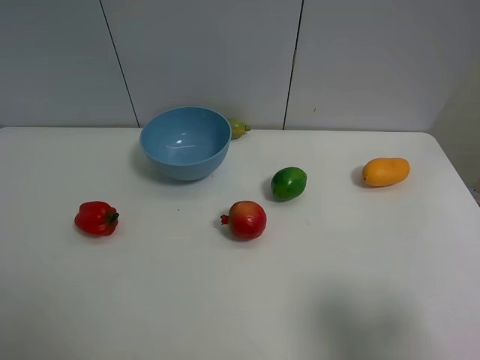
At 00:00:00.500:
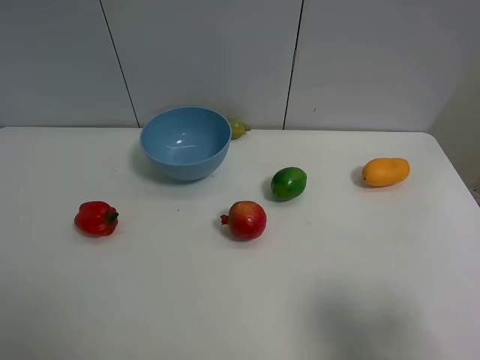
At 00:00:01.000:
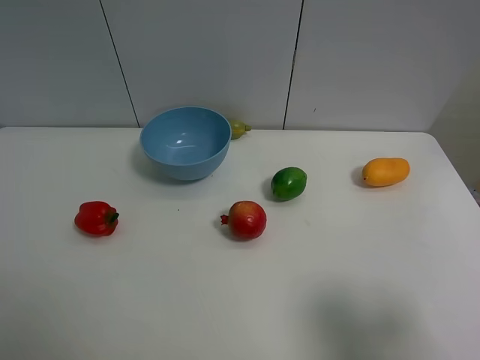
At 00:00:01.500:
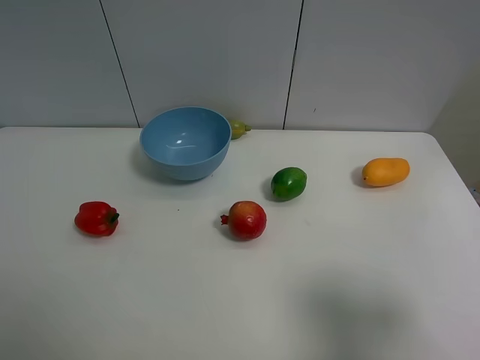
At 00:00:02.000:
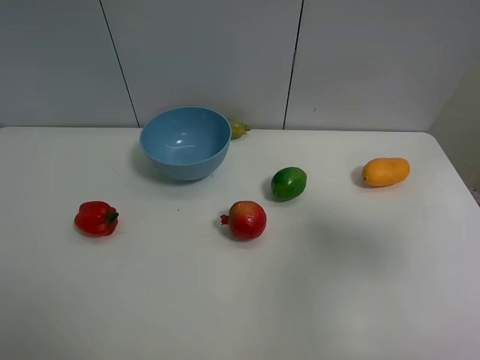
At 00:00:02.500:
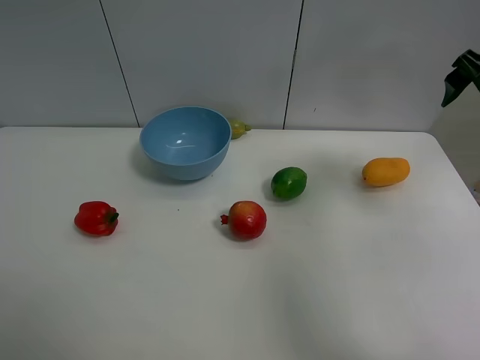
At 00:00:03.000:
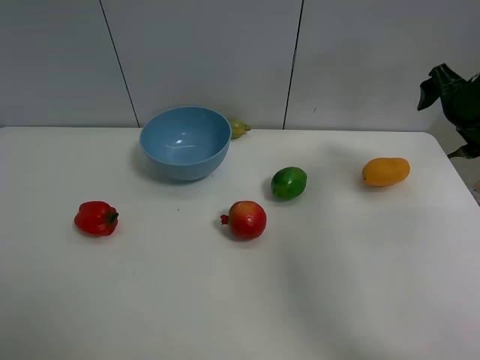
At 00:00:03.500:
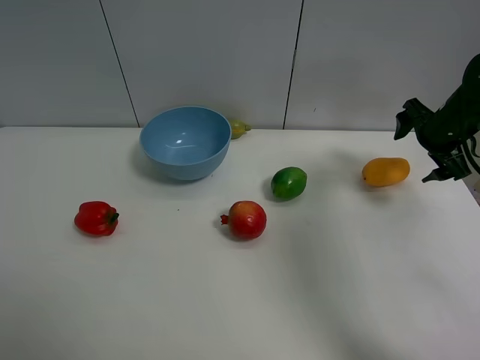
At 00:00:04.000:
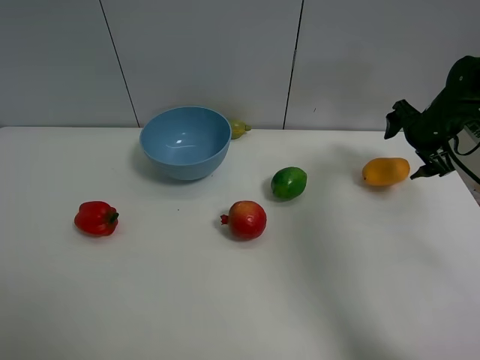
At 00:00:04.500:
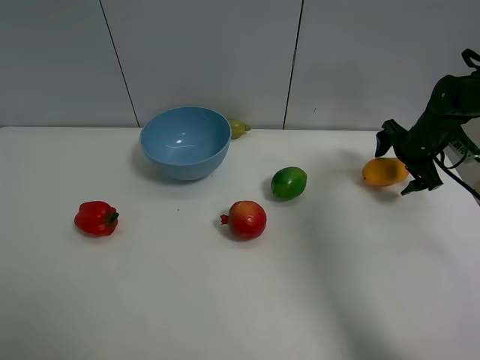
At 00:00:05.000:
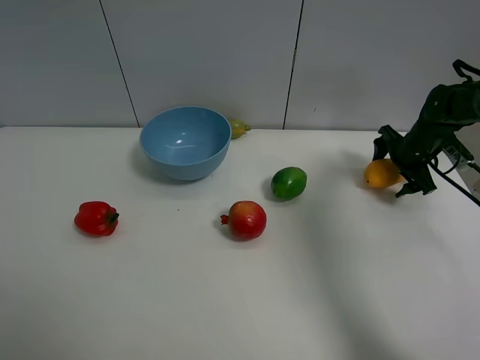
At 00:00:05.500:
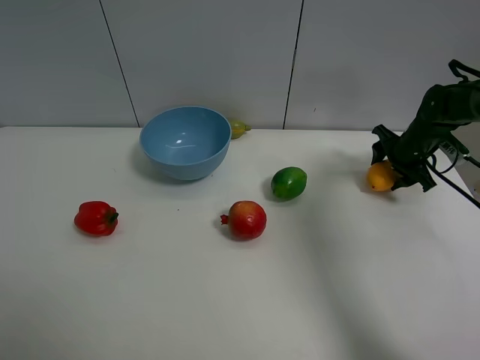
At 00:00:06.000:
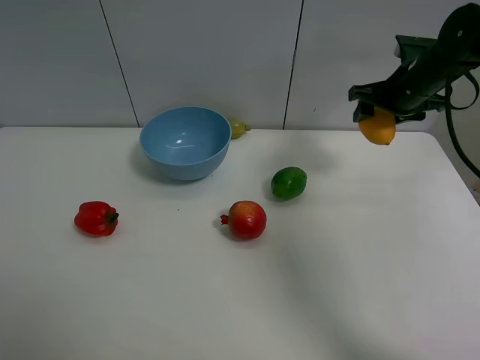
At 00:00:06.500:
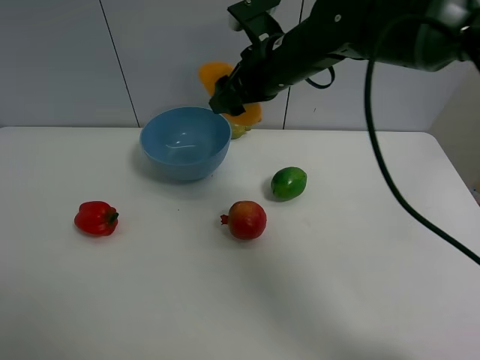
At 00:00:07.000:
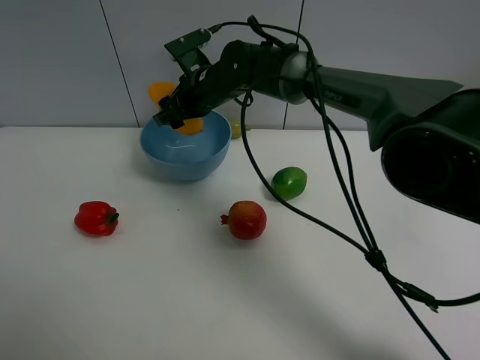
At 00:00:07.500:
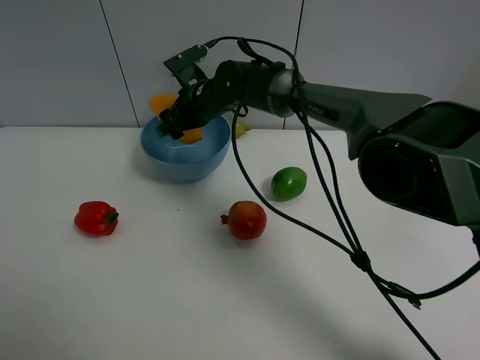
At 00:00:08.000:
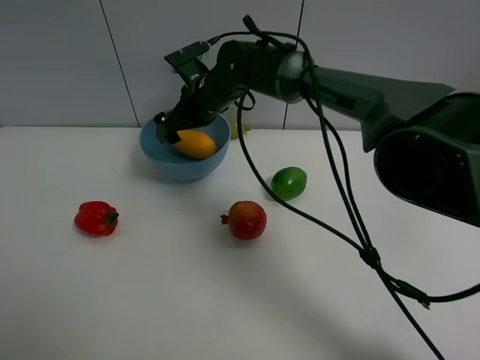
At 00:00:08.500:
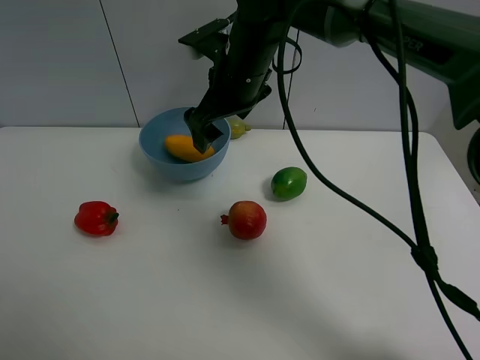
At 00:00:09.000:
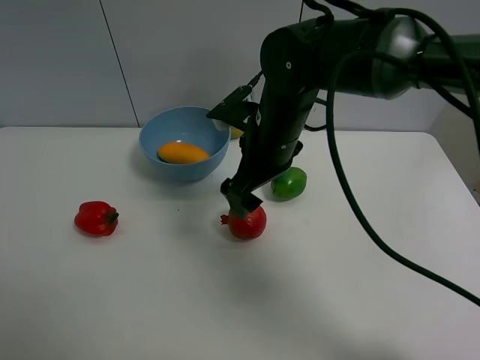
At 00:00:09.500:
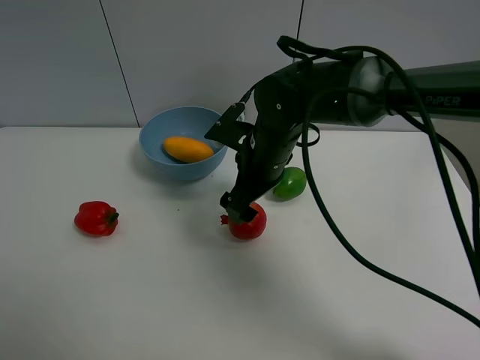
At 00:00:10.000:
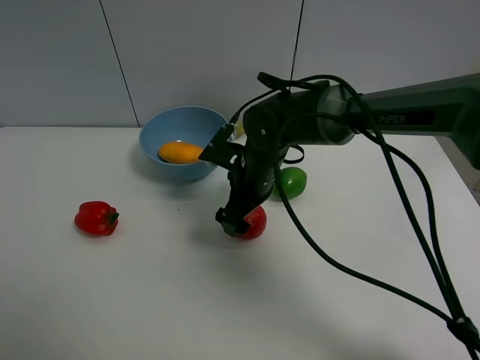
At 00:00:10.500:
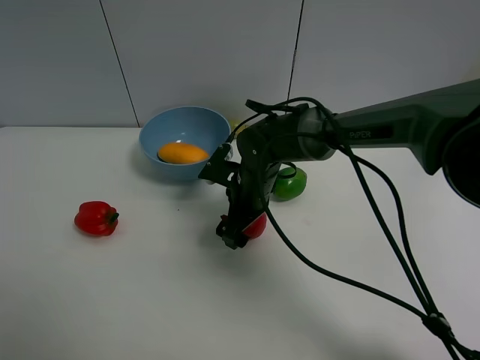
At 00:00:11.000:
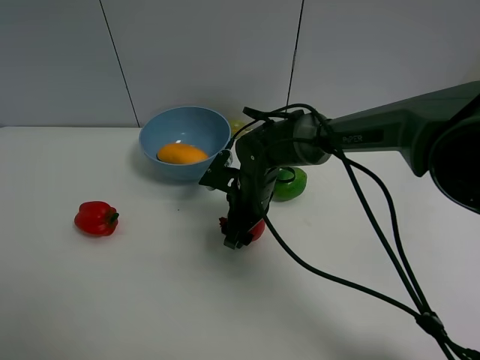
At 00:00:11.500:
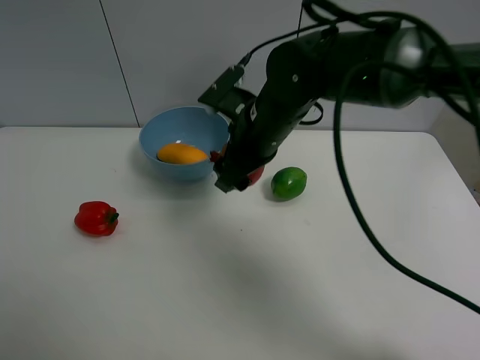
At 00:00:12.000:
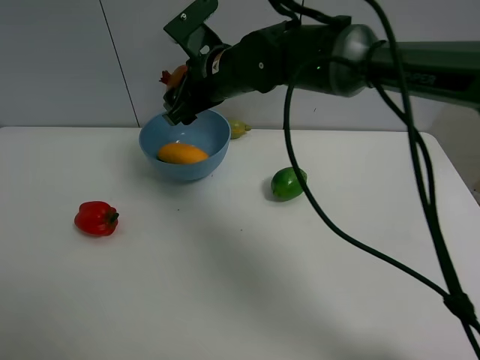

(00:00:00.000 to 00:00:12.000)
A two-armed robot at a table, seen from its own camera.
Task of the whole recording: Put the three fruits on the table into a bowl.
Step, 00:00:00.000 - 00:00:05.000: Grasp the mango with right gripper.
Step, 00:00:05.500 - 00:00:07.500: Place the mango in the blue bowl with right gripper.
Step, 00:00:08.000 - 00:00:11.000: Grasp the pomegranate with right gripper.
00:00:00.000 - 00:00:02.000: The right gripper shifts roughly 15 cm forward and upward.
00:00:02.000 - 00:00:04.000: The right gripper is displaced forward and downward by approximately 30 cm.
00:00:04.000 - 00:00:06.000: The right gripper travels to the left and upward by approximately 10 cm, and closes its fingers.
00:00:06.000 - 00:00:08.000: The right gripper moves to the left, roughly 30 cm, and opens up.
00:00:08.000 - 00:00:10.000: The right gripper heads backward, downward and to the right, covering about 15 cm.
00:00:10.000 - 00:00:12.000: The right gripper is displaced upward and forward by some 10 cm, and closes its fingers.

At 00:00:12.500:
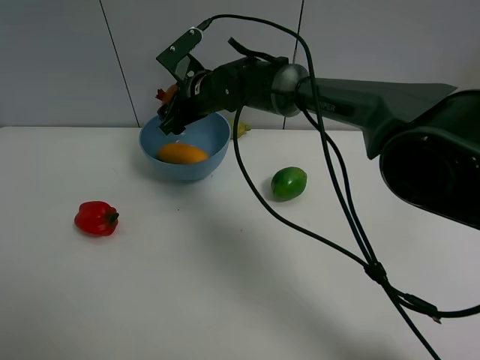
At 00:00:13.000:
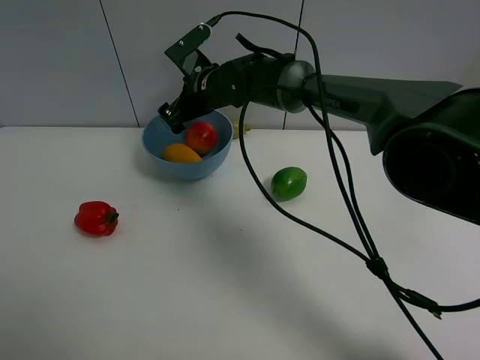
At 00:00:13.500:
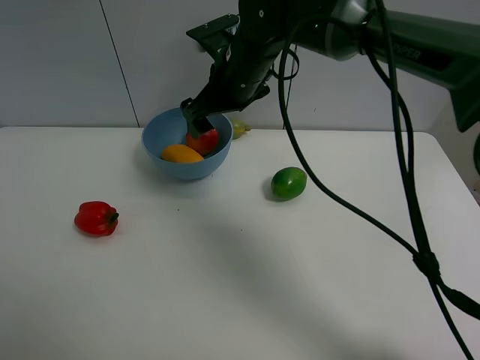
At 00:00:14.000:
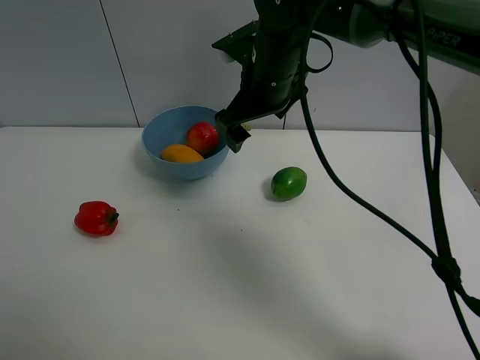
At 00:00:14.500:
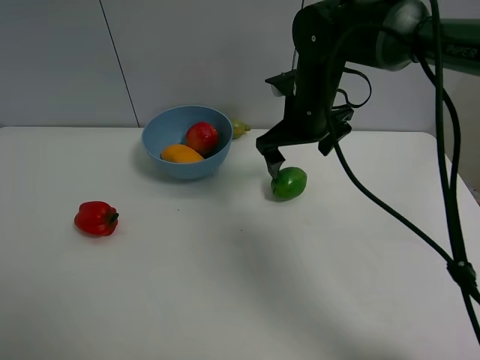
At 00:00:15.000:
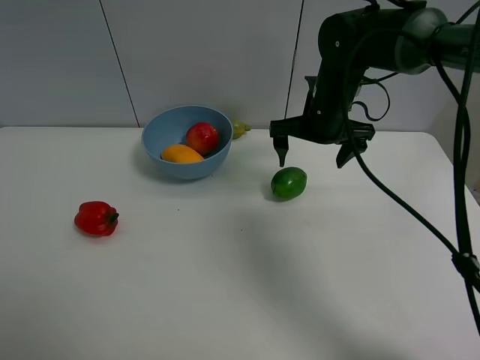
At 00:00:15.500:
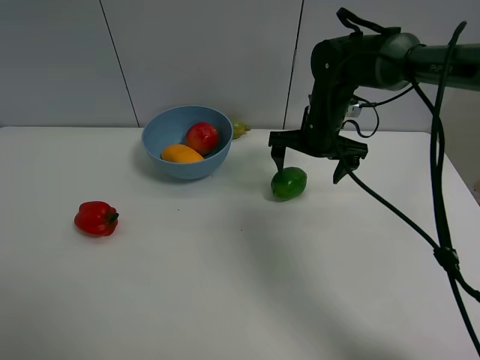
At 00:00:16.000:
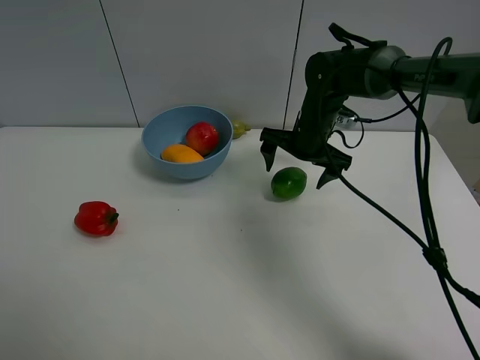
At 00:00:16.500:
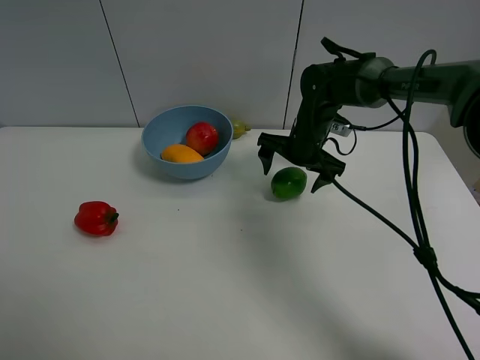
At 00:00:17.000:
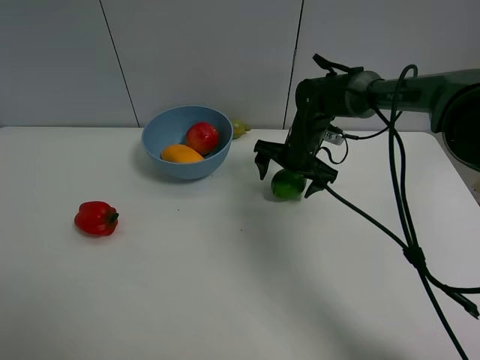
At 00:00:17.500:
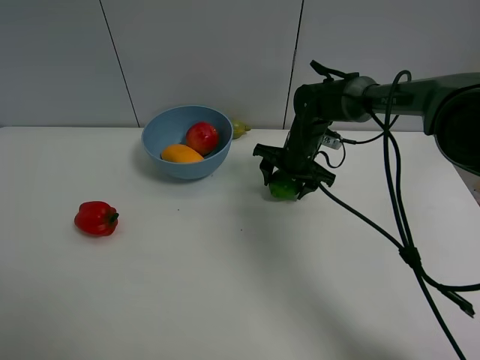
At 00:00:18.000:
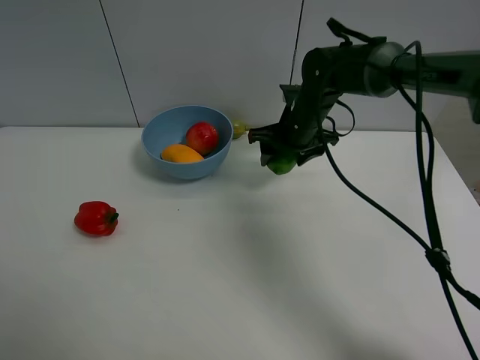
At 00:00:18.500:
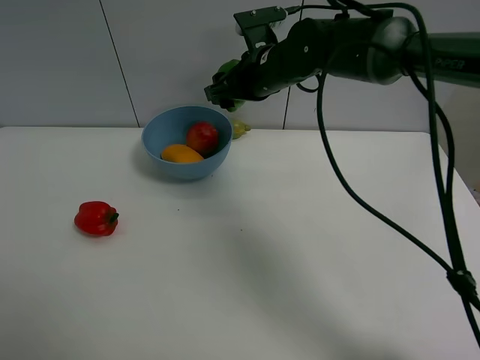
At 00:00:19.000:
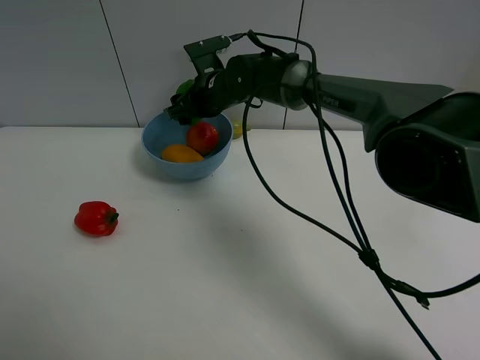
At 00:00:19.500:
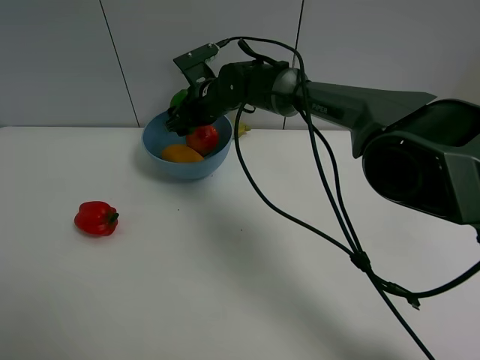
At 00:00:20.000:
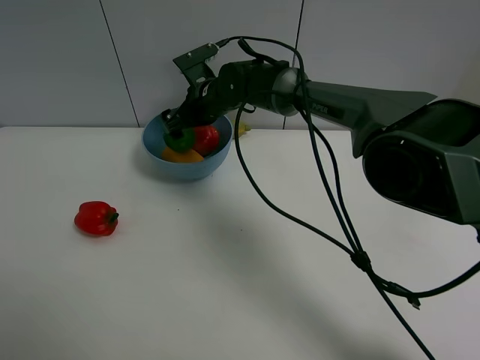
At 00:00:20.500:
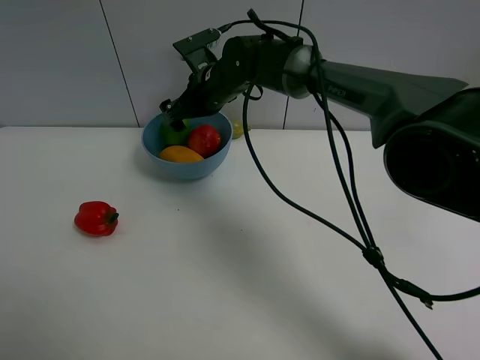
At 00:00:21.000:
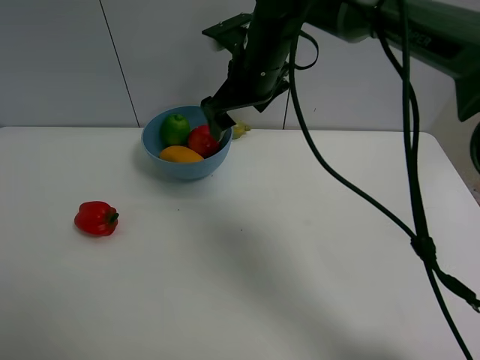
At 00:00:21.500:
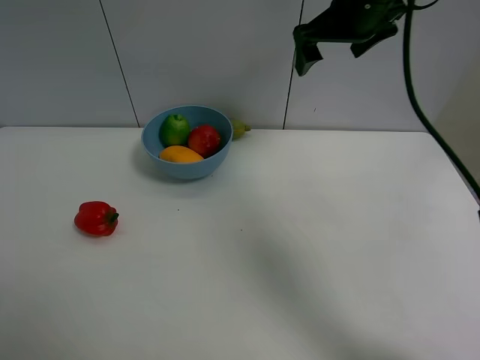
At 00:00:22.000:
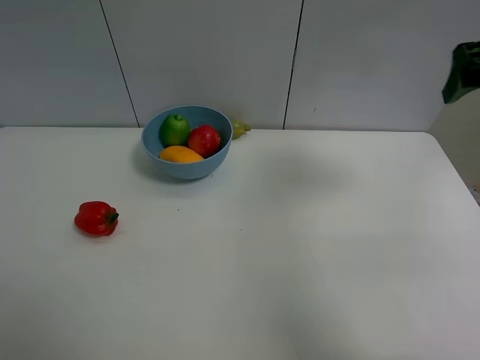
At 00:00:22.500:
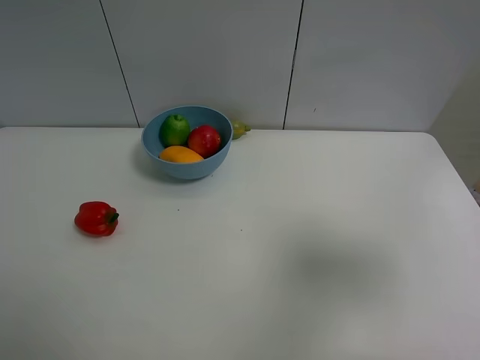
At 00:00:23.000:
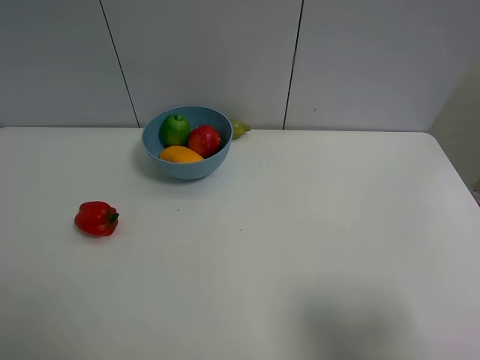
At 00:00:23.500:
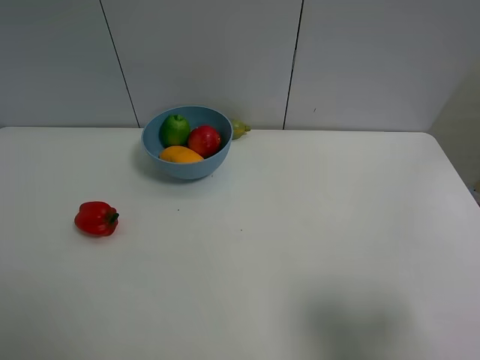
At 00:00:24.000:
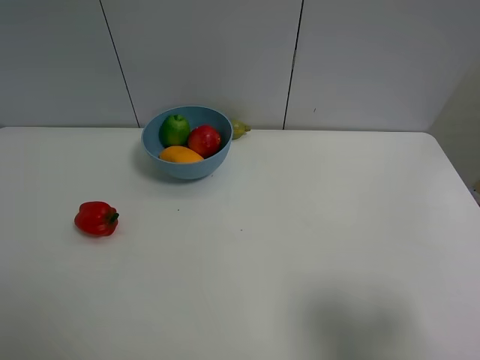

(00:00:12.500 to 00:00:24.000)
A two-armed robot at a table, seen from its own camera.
Task of the whole recording: Put the three fruits on the table into a bowl.
Step, 00:00:13.500 - 00:00:17.500: Grasp the green lemon with right gripper.
Step, 00:00:18.000 - 00:00:20.500: Place the green lemon in the blue bowl with right gripper.
00:00:12.500 - 00:00:14.500: The right gripper heads to the right and backward, covering approximately 15 cm, and opens up.
00:00:14.500 - 00:00:16.500: The right gripper is displaced downward by roughly 10 cm.
00:00:16.500 - 00:00:18.500: The right gripper shifts about 15 cm upward and to the left, and closes its fingers.
00:00:18.500 - 00:00:20.000: The right gripper travels to the left and downward by roughly 10 cm, and opens its fingers.
00:00:20.000 - 00:00:22.000: The right gripper shifts approximately 40 cm to the right, upward and backward.
00:00:22.000 - 00:00:24.000: The right gripper travels backward and downward by roughly 30 cm.
